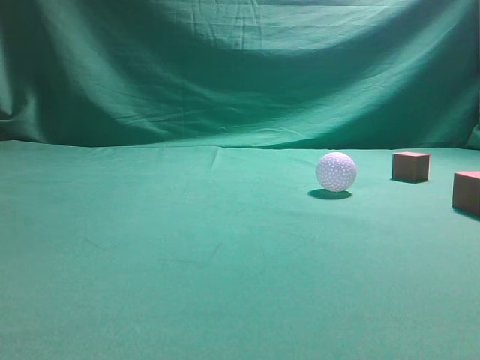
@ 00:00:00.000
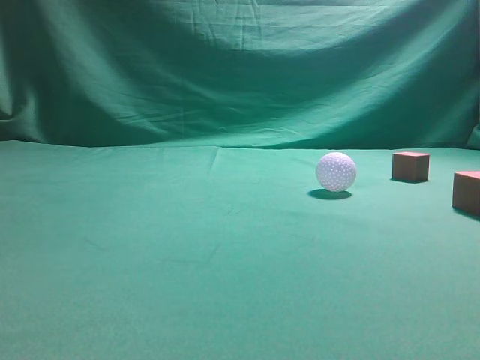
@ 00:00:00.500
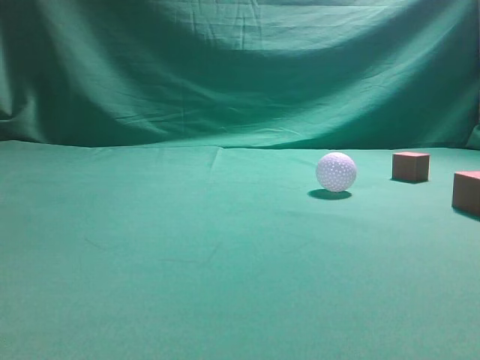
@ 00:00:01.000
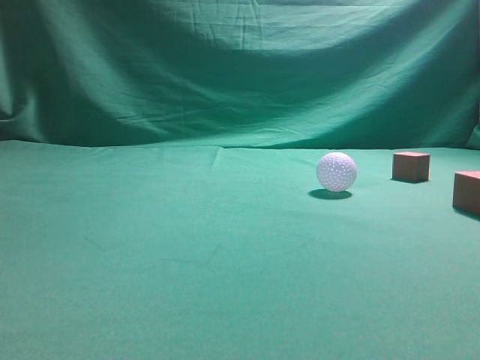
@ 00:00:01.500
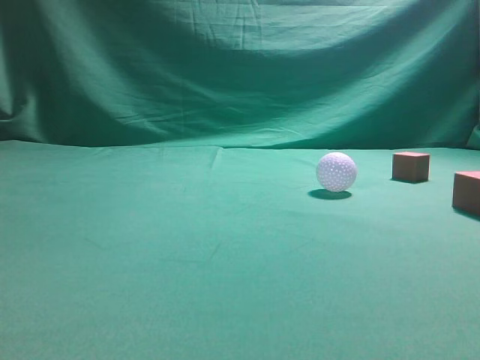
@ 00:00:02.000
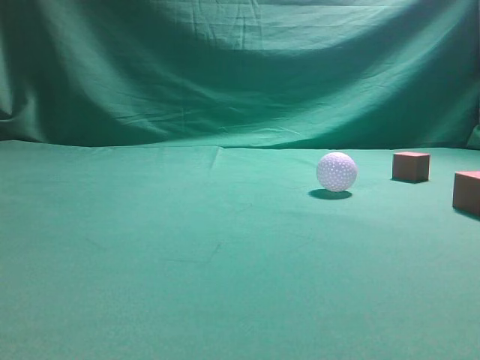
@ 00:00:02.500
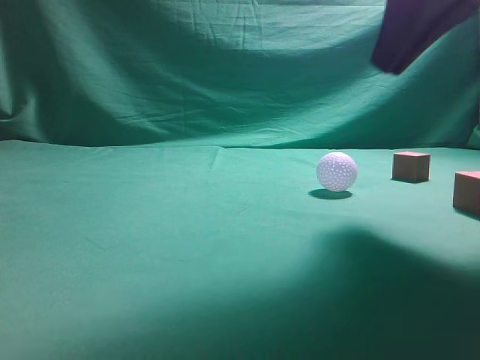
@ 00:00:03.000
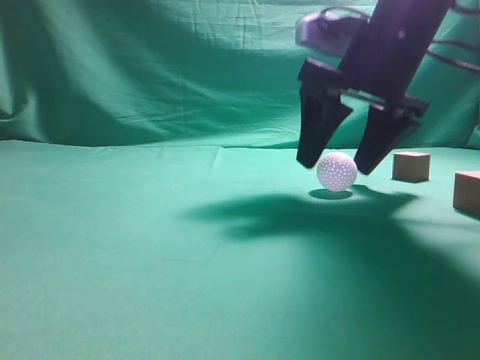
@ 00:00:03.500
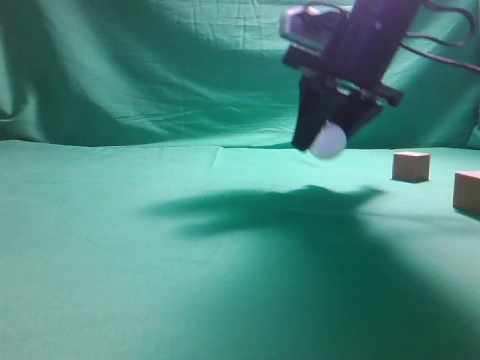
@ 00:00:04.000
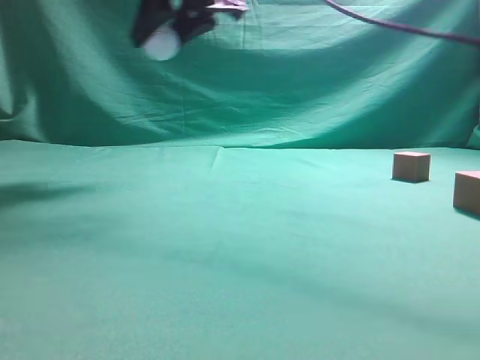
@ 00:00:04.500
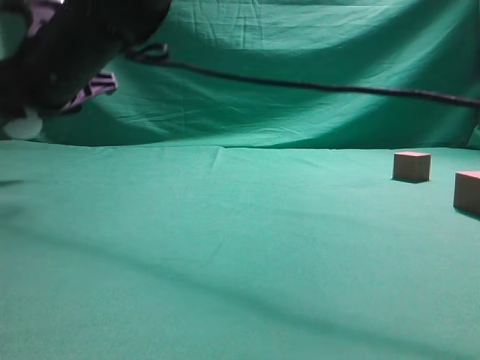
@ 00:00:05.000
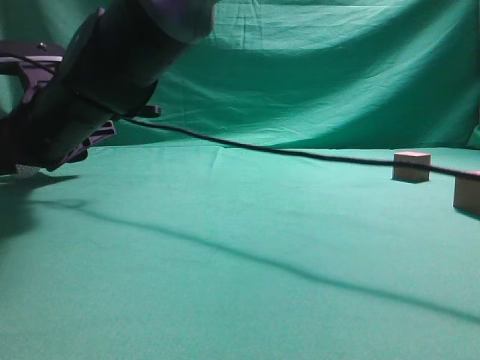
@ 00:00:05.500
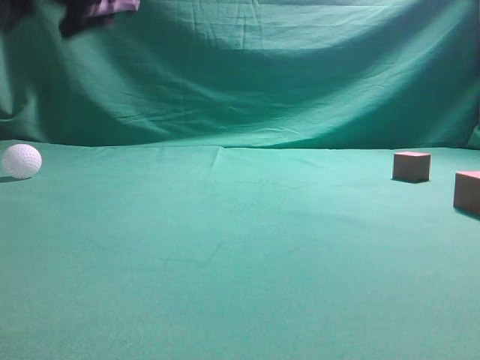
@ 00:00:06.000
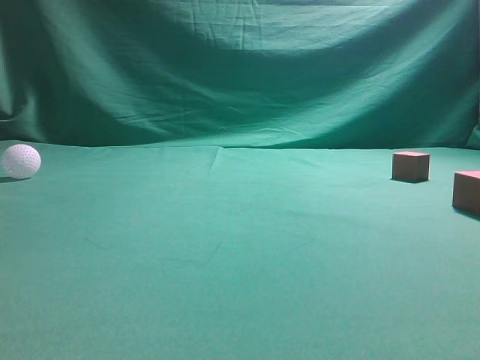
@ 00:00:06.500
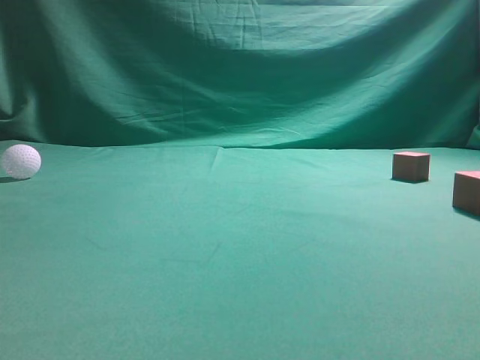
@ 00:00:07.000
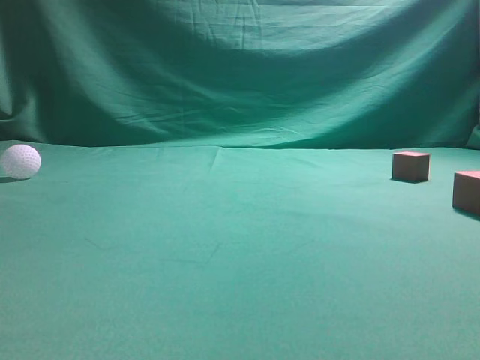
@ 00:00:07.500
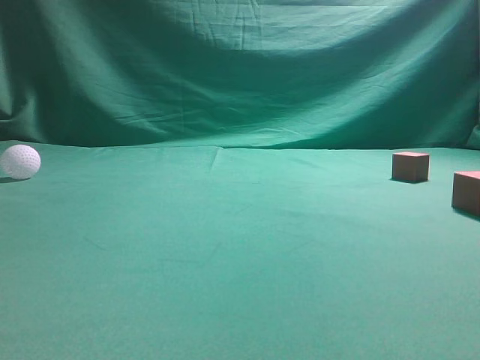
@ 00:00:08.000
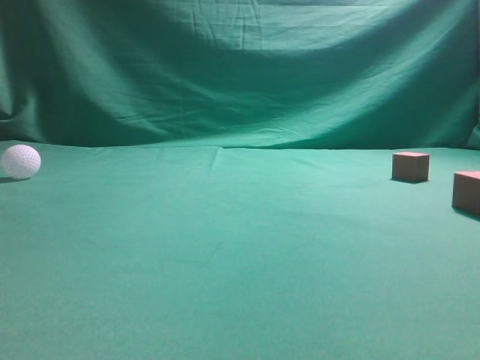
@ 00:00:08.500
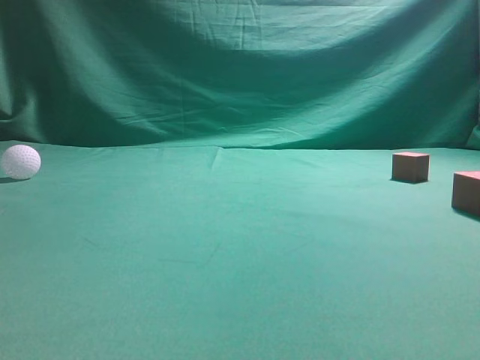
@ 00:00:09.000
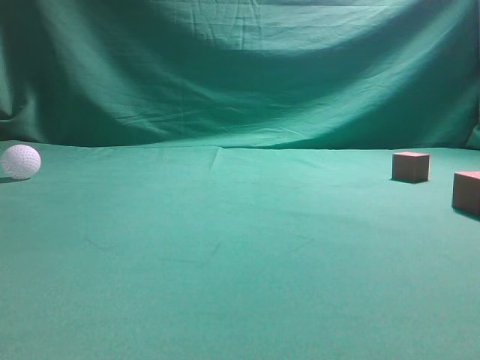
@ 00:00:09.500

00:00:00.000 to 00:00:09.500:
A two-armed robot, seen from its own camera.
Step, 00:00:00.000 to 00:00:04.000: Grasp the spherical object on the right side.
00:00:02.000 to 00:00:04.000: The right gripper shifts roughly 35 cm forward and to the left, and opens its fingers.
00:00:04.000 to 00:00:05.500: The right gripper moves to the left and downward, about 25 cm, and opens its fingers.
00:00:05.500 to 00:00:07.500: The right gripper travels to the right and backward by about 50 cm, and closes up.
